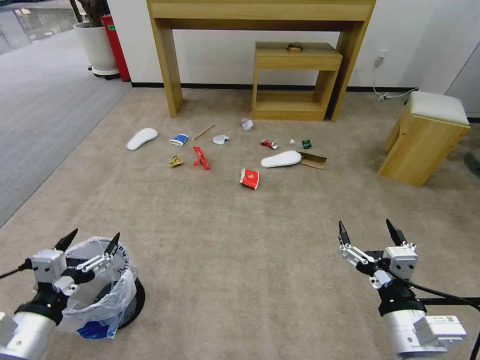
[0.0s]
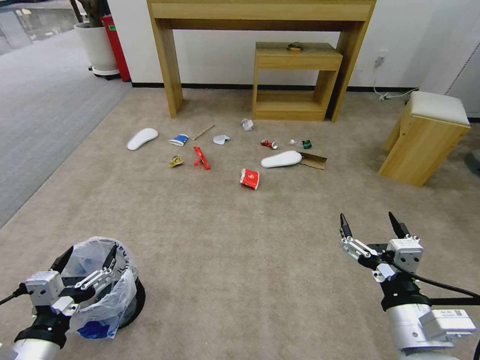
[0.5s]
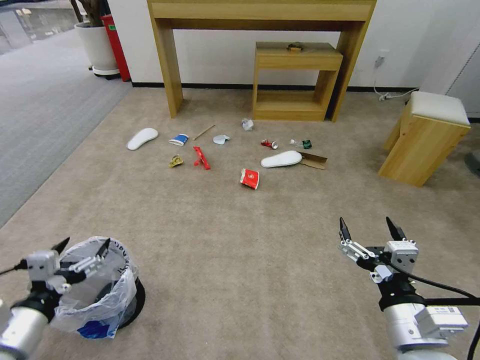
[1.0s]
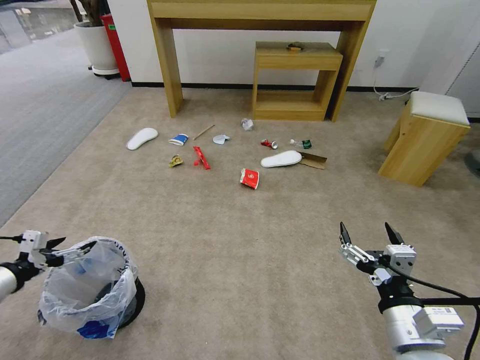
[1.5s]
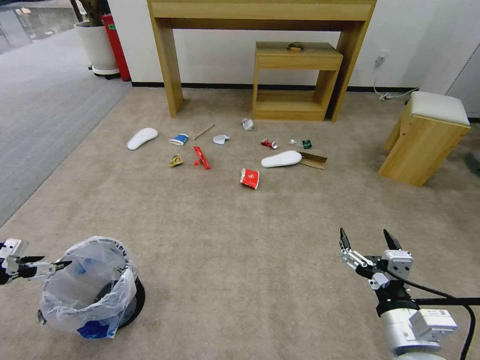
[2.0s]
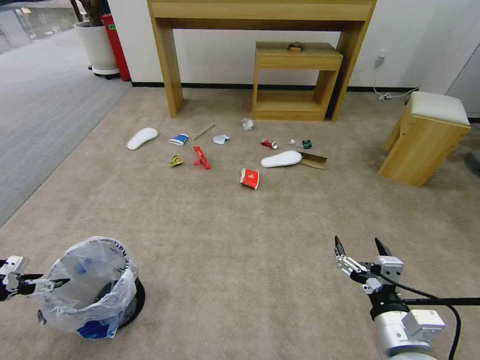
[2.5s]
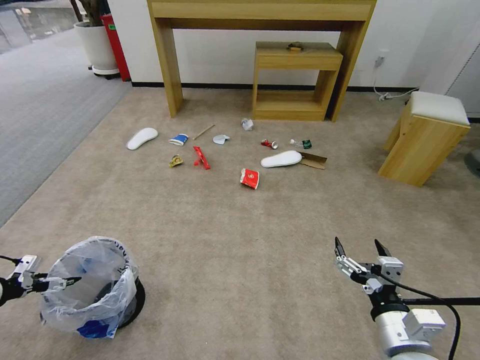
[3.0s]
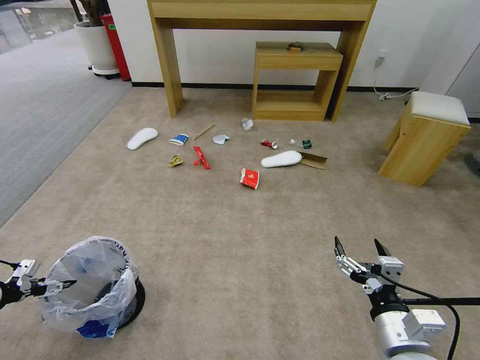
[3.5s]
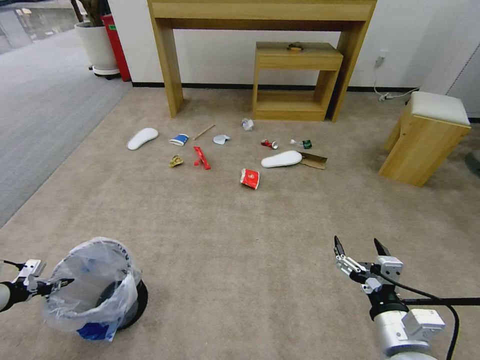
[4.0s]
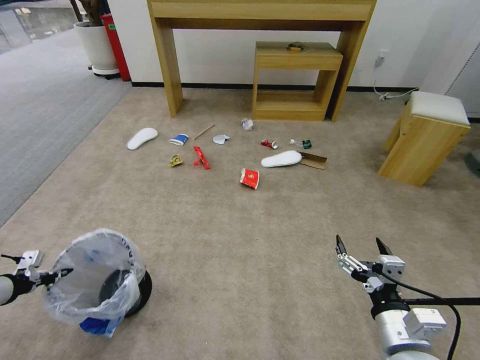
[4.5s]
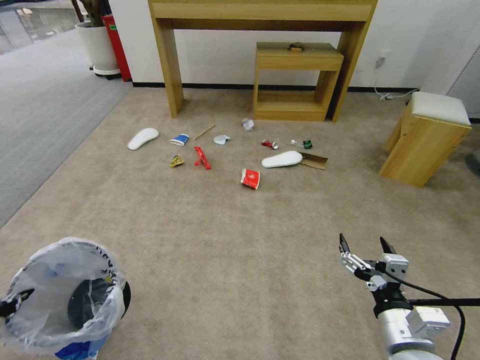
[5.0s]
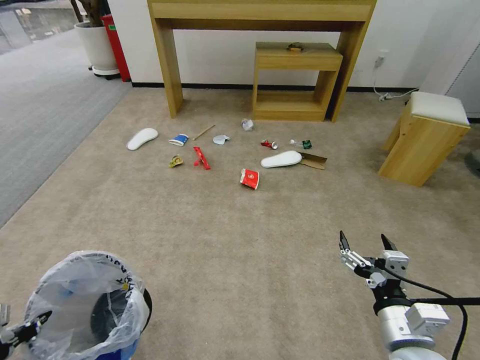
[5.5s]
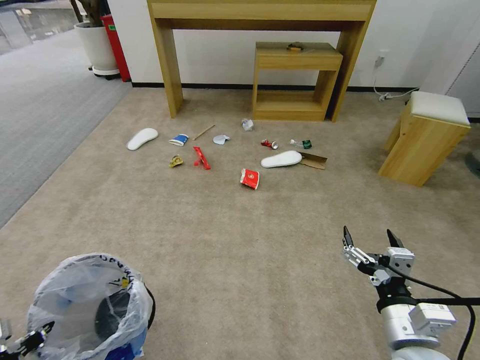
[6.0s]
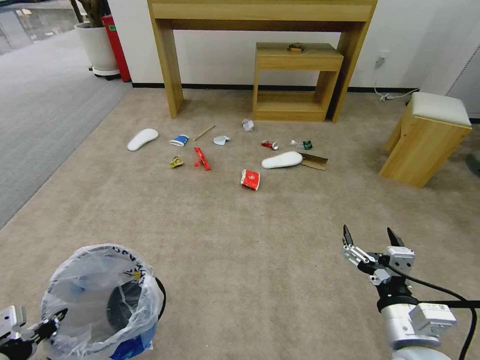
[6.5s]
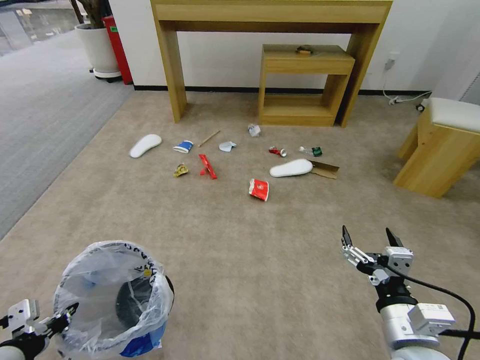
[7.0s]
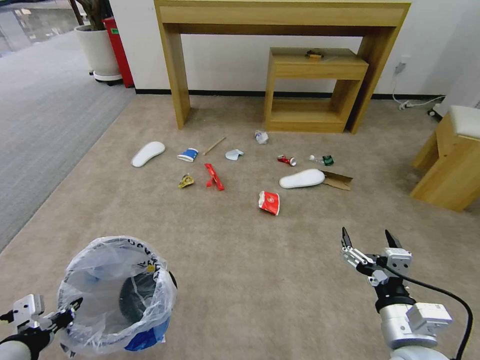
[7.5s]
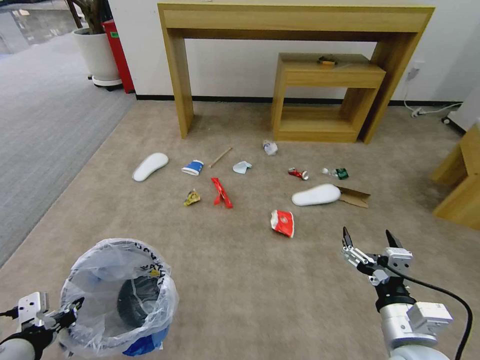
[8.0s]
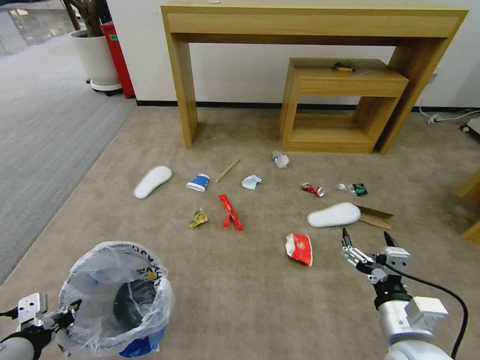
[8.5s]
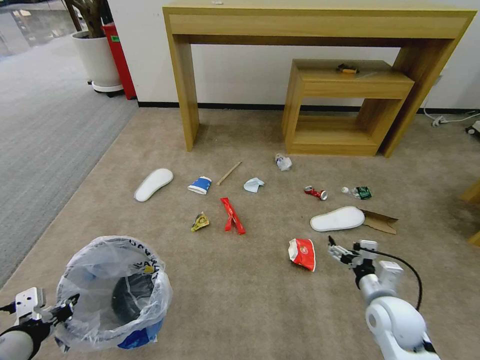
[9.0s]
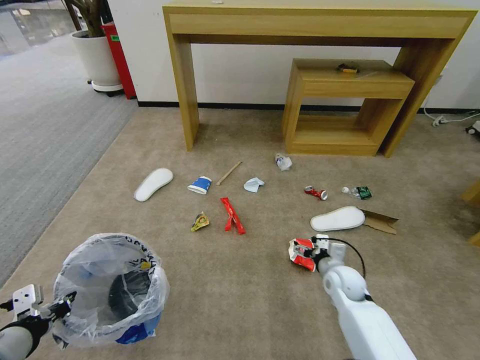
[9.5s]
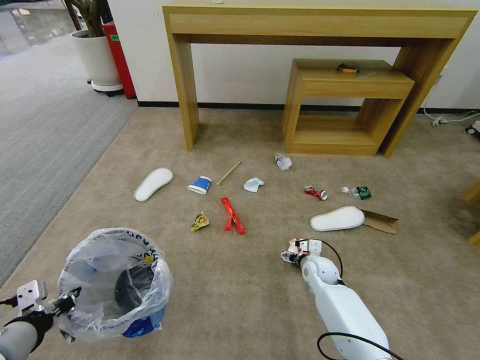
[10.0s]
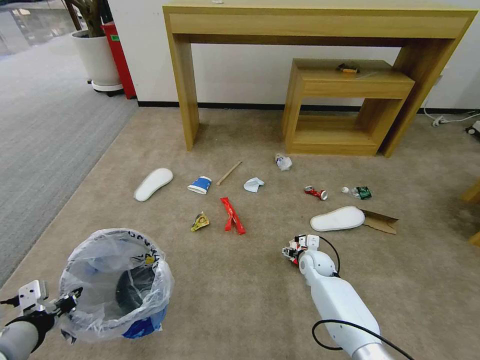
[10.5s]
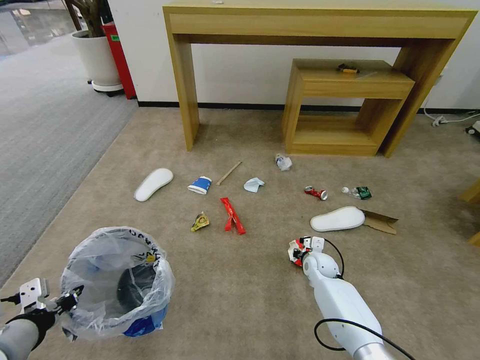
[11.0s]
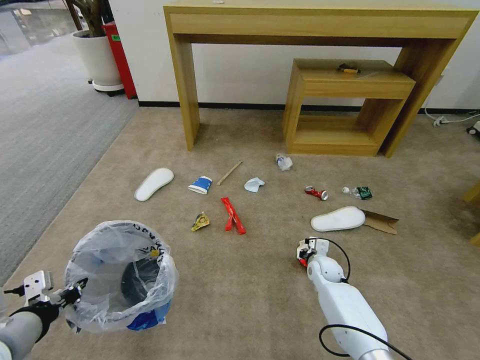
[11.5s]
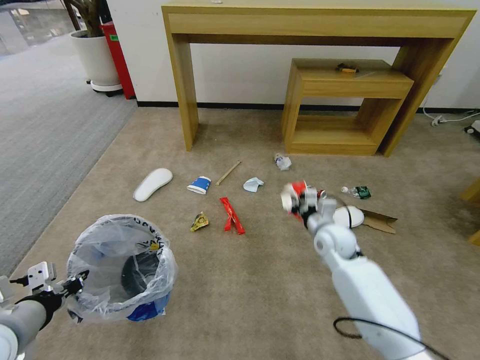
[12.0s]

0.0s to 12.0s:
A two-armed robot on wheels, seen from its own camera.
Task of the whole recording: Pick up the trash bin and place the garbage on the floor into it.
2.0s to 4.0s: The left gripper is displaced downward by about 5 cm, and closes up.
4.0s to 6.0s: The left gripper travels to the right and backward by roughly 25 cm.
6.0s to 8.0s: The left gripper shifts by some 5 cm.
8.0s to 10.0s: The right gripper goes about 35 cm forward and downward.
10.0s to 12.0s: The right gripper heads upward, covering about 15 cm, and closes its fingers.

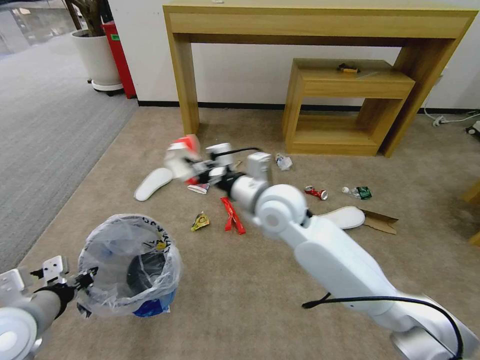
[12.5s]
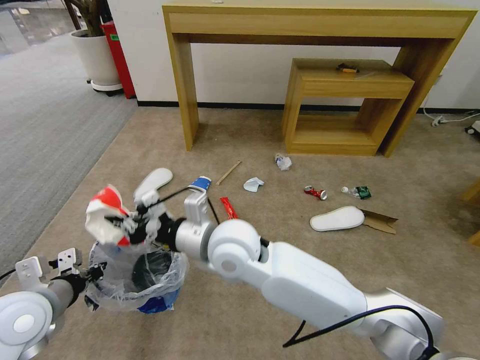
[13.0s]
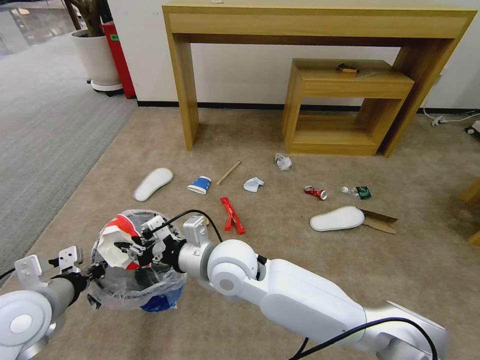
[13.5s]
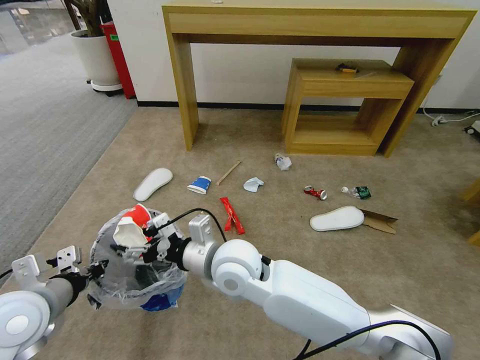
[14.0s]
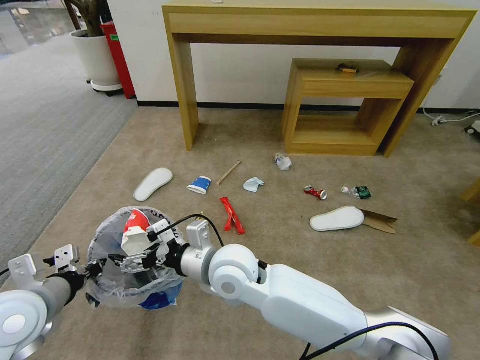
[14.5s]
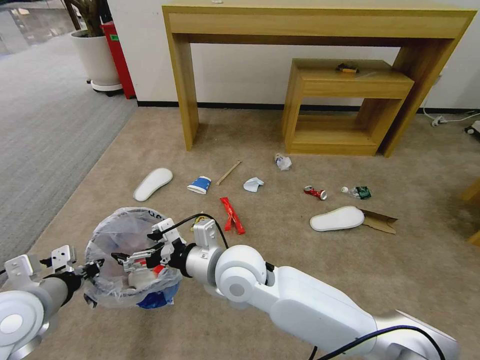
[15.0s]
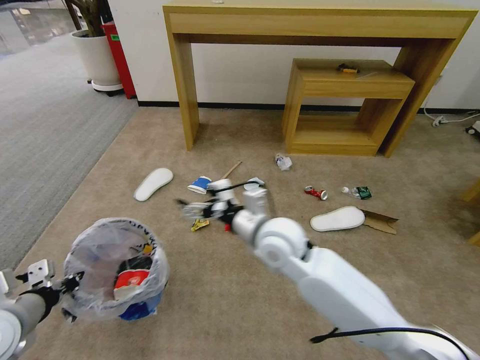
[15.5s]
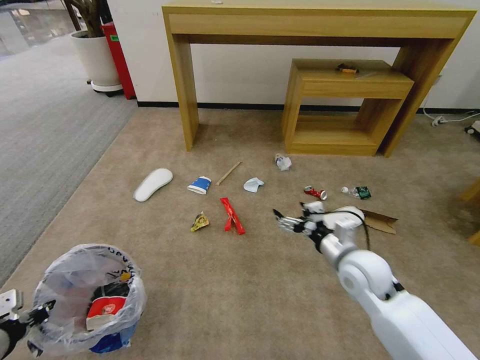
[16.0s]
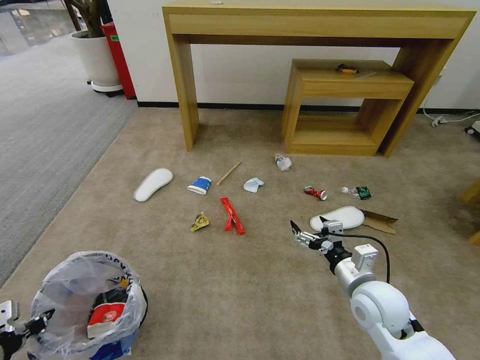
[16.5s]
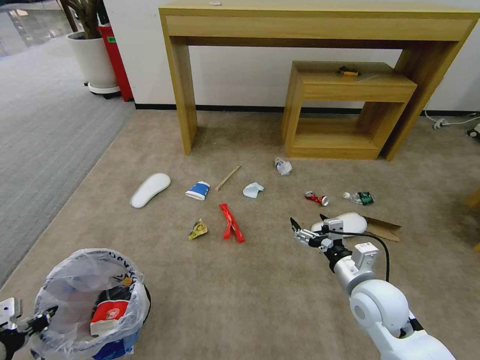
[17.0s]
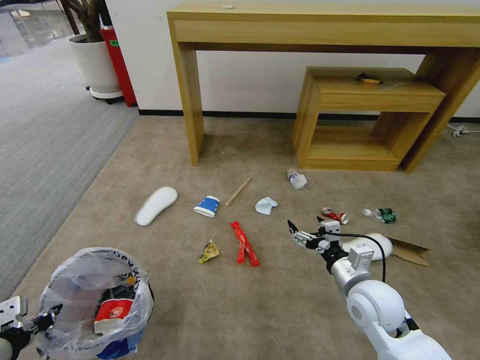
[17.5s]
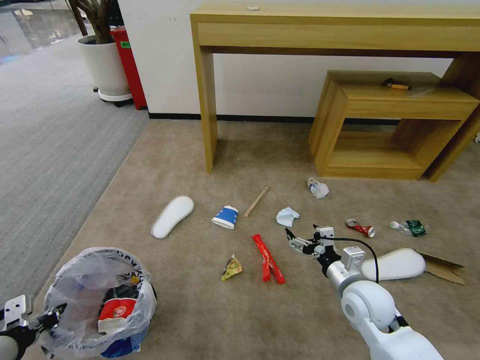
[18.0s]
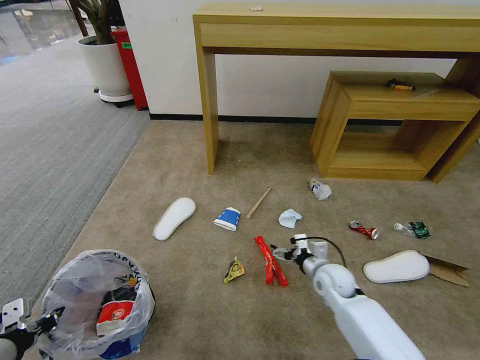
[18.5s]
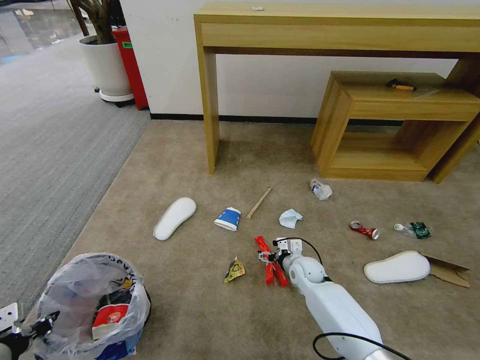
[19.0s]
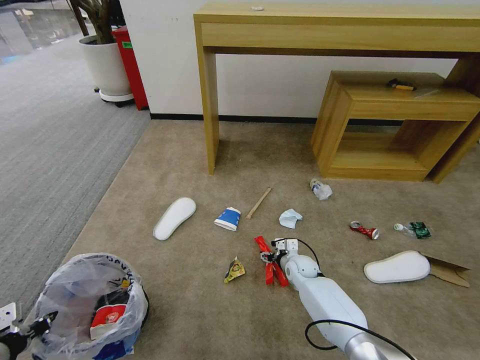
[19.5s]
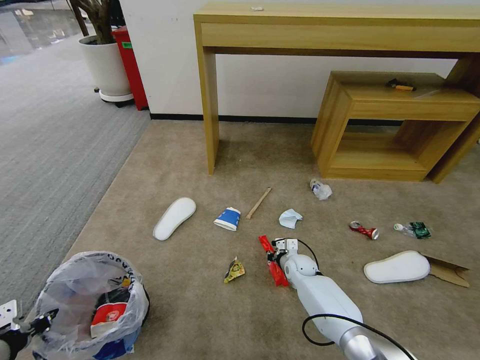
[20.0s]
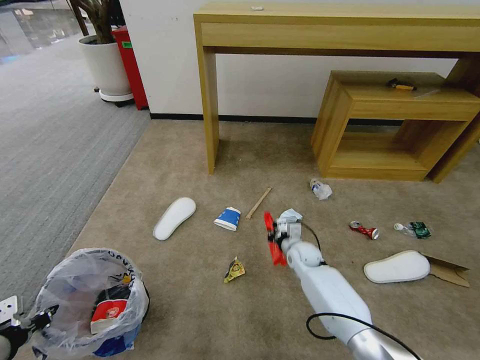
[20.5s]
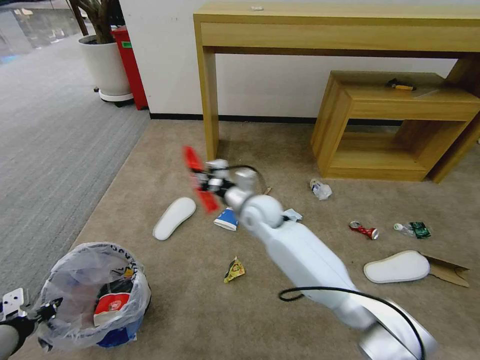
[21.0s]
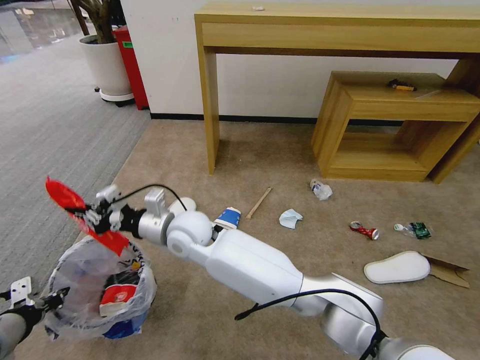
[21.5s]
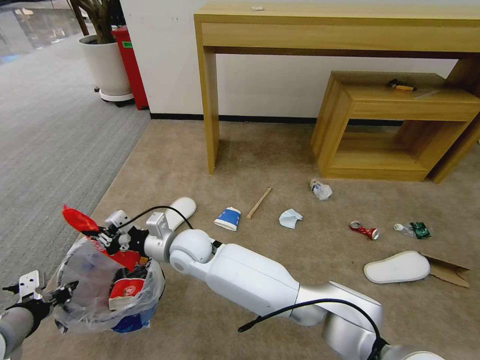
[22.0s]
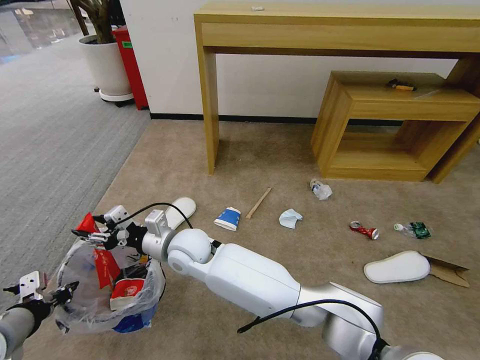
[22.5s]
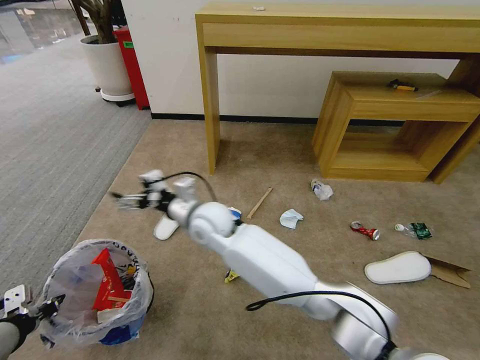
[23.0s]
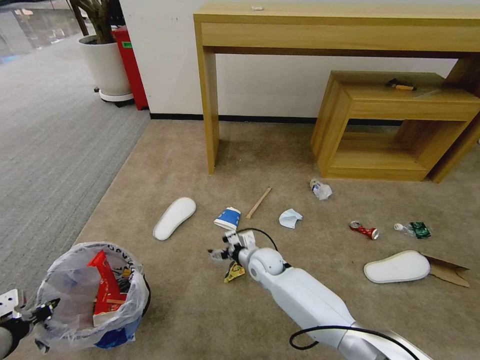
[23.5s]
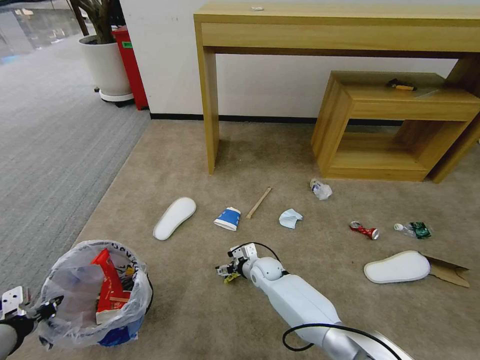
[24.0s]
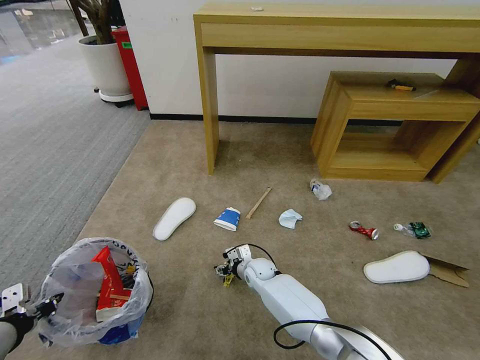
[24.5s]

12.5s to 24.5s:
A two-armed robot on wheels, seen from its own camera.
Task of the whole recording: Pick up the trash bin and place the garbage on the floor into it.
12.5s to 14.5s: The right gripper moves to the left, backward and downward, some 15 cm, and opens its fingers.
14.5s to 16.5s: The right gripper is displaced to the right by approximately 30 cm, while the left gripper goes approximately 15 cm backward and to the left.
16.5s to 18.5s: The right gripper moves downward and forward, some 15 cm.
18.5s to 20.5s: The right gripper moves forward, about 10 cm, and closes up.
20.5s to 22.5s: The left gripper changes place by approximately 5 cm; the right gripper is displaced to the left and upward by some 35 cm, and opens up.
22.5s to 24.5s: The right gripper is displaced downward and to the right by approximately 30 cm, and opens and closes again.

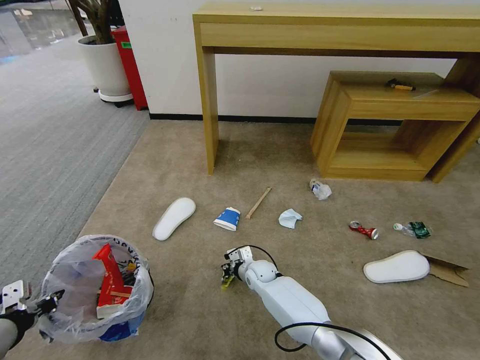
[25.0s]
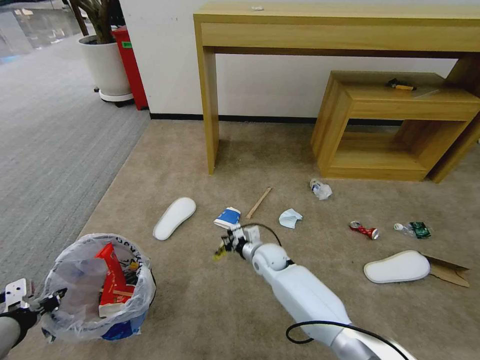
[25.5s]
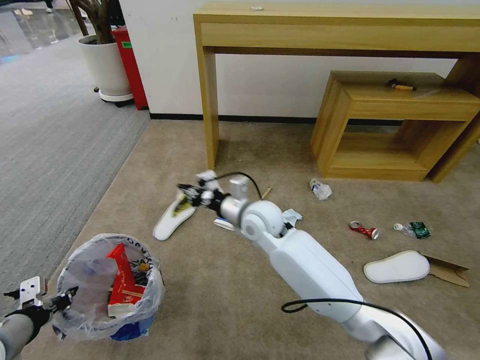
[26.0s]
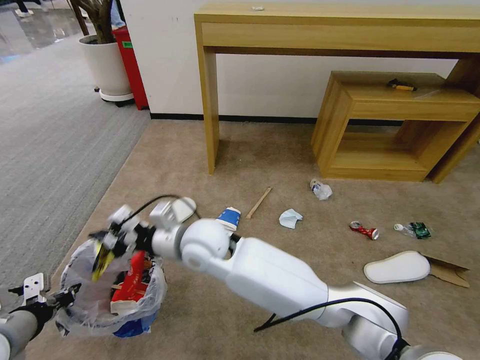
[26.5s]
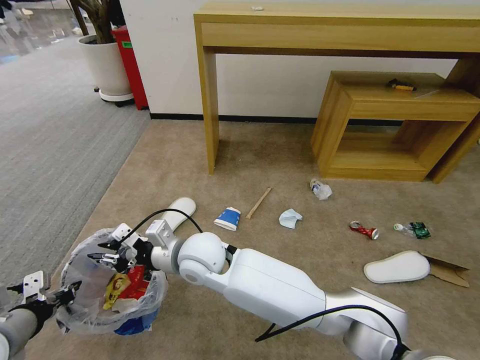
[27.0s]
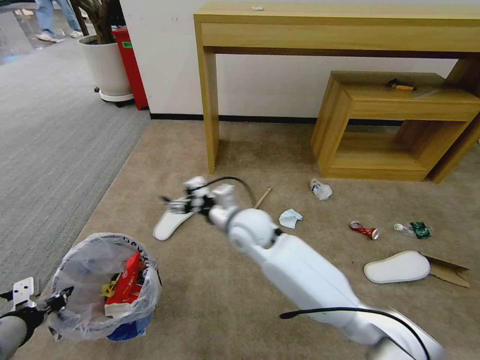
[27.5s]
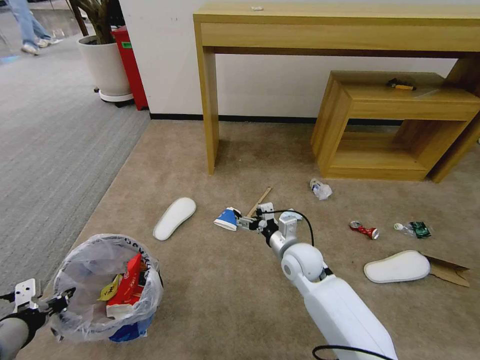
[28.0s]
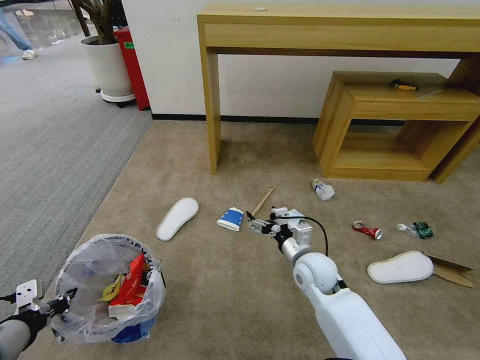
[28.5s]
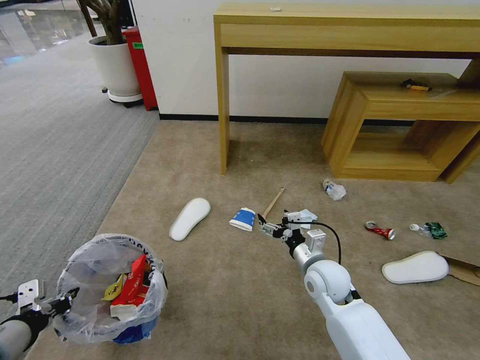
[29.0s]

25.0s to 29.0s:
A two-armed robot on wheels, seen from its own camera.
Task of the whole recording: Pick up the trash bin and place the garbage on the floor into it.
25.0s to 27.0s: The right gripper goes roughly 30 cm upward and to the left.
27.0s to 29.0s: The right gripper shifts roughly 30 cm to the right, and opens.
